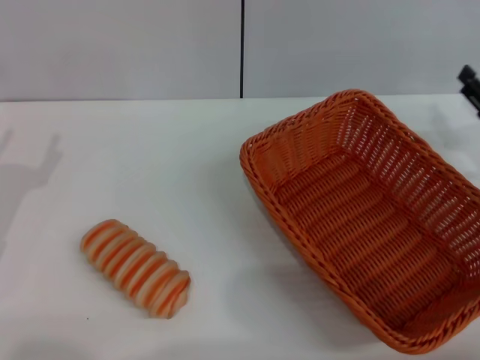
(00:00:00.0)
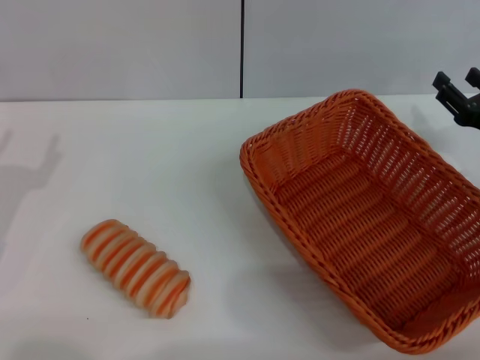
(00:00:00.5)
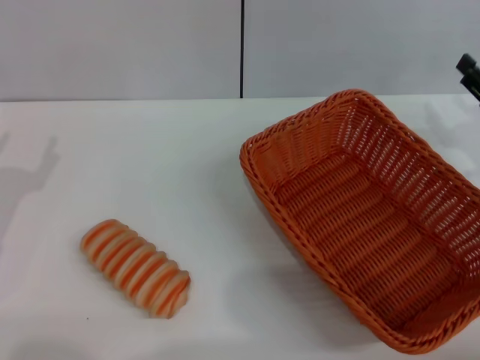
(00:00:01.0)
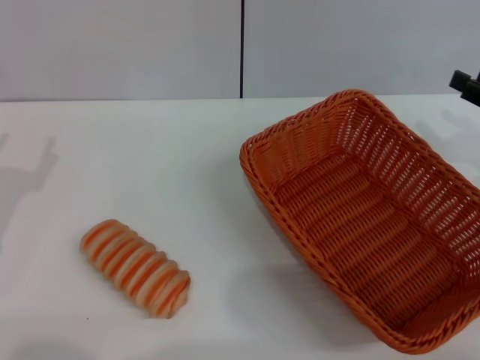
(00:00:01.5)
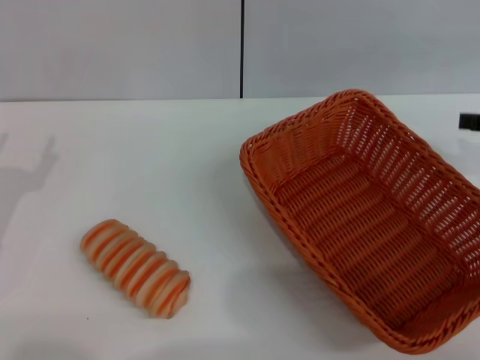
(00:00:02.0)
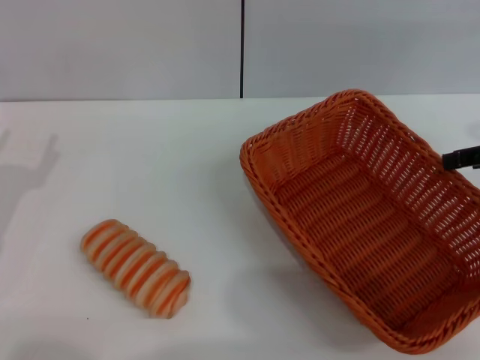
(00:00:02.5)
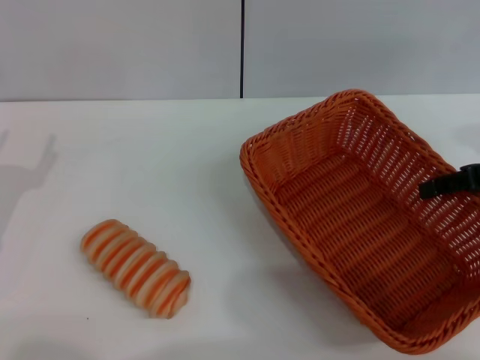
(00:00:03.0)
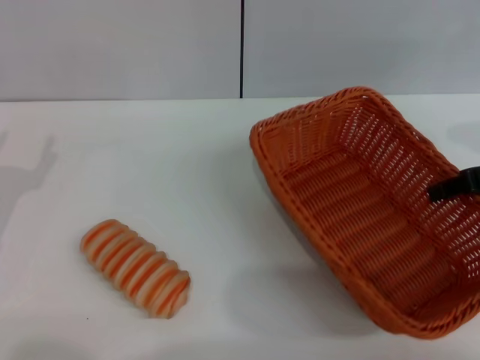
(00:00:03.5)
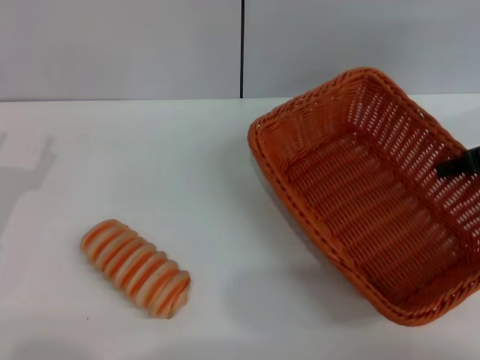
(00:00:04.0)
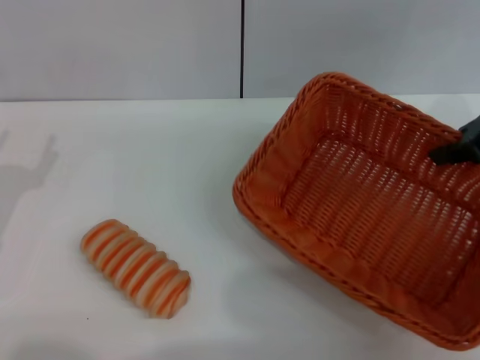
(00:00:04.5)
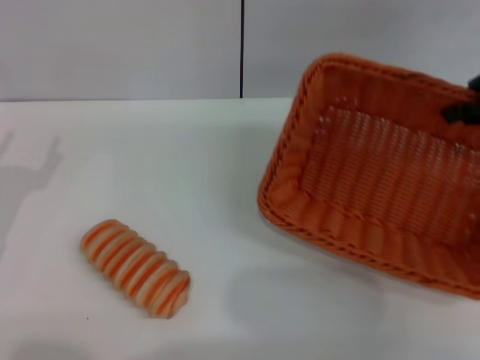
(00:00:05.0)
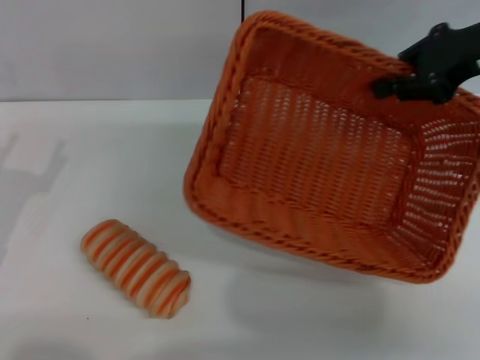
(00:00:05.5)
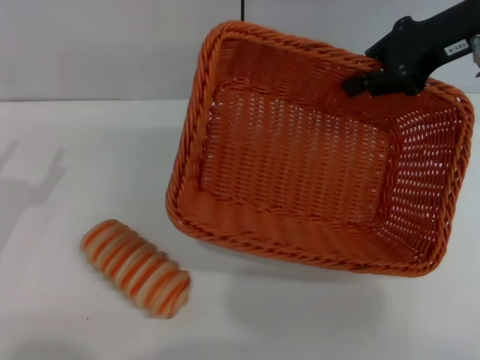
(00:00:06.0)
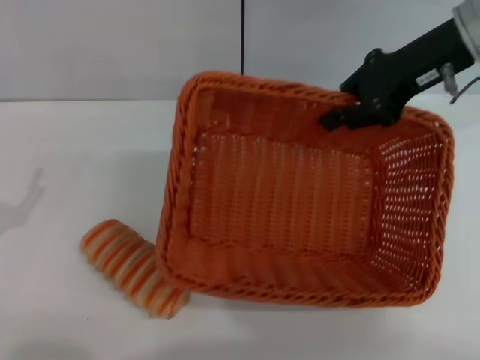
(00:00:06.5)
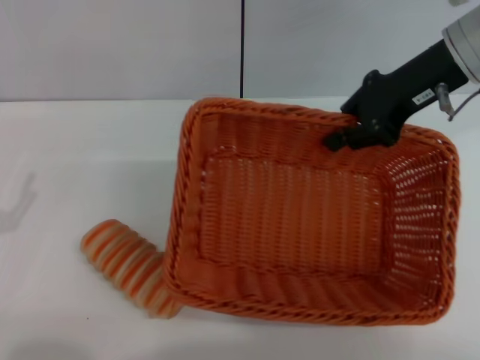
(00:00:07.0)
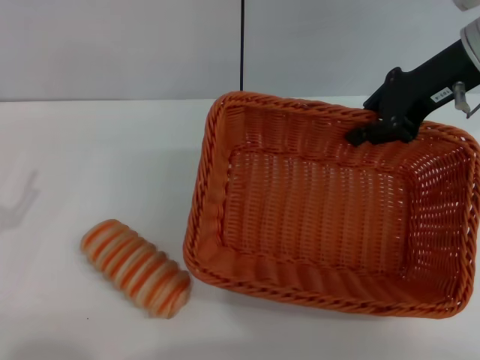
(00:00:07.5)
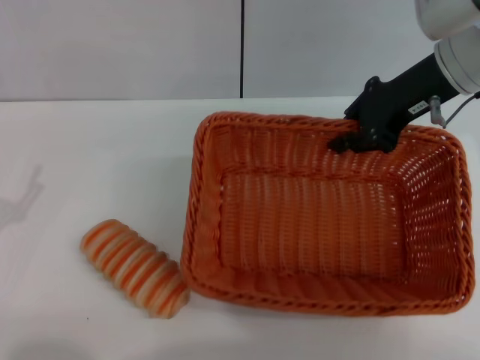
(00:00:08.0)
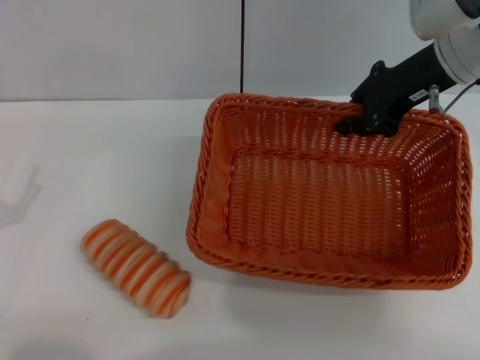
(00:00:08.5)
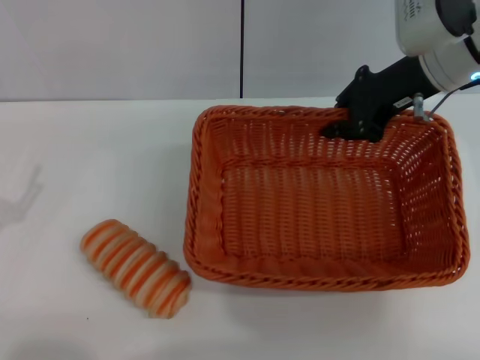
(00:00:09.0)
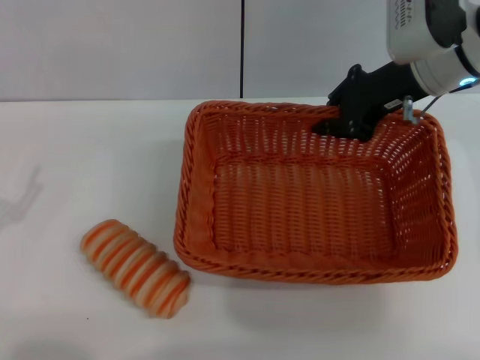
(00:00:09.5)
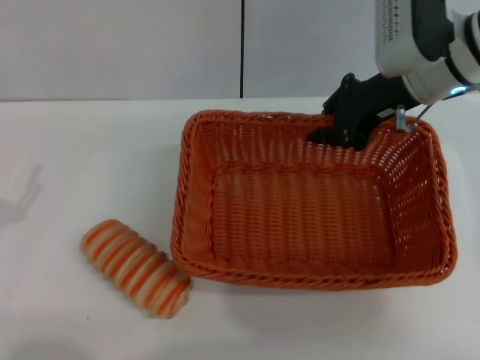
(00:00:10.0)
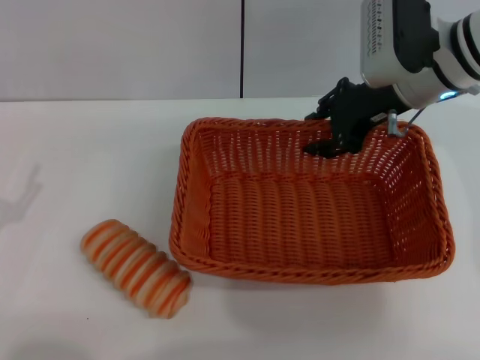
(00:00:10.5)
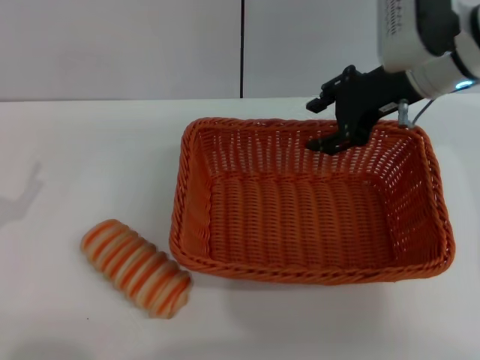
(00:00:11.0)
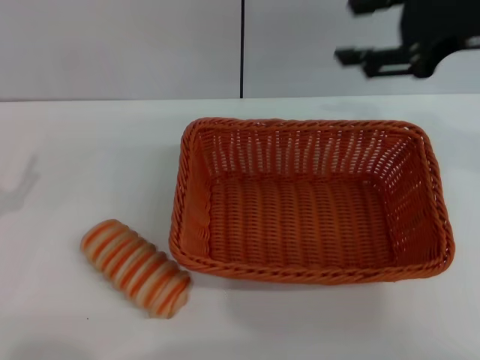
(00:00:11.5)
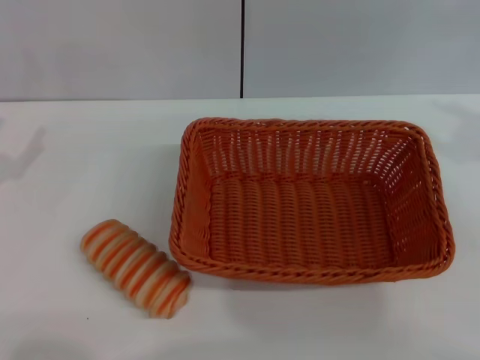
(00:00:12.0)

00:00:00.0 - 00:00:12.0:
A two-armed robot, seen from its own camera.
Step, 00:00:00.0 - 00:00:04.5: Pick up the light basket with the right gripper.
Step, 00:00:05.0 - 00:00:10.5: Place the light basket in the center of view with the right gripper.
00:00:00.0 - 00:00:02.0: The right gripper shifts some 10 cm upward.
00:00:02.0 - 00:00:04.0: The right gripper shifts by roughly 5 cm, and closes its fingers.
00:00:04.0 - 00:00:06.0: The right gripper is displaced forward, to the left and upward by approximately 10 cm.
00:00:06.0 - 00:00:08.0: The right gripper changes place by some 5 cm.
00:00:08.0 - 00:00:10.0: The grippers move only a little.
00:00:10.0 - 00:00:12.0: The left gripper goes approximately 5 cm forward. Meanwhile the right gripper is displaced to the right, backward and upward by approximately 25 cm, and opens.

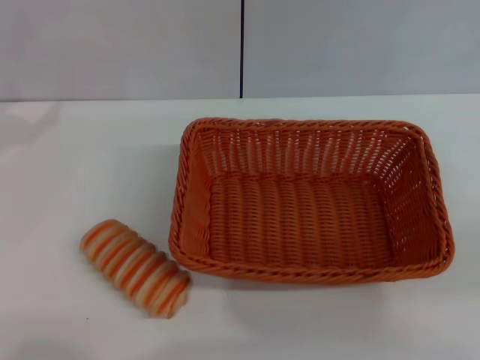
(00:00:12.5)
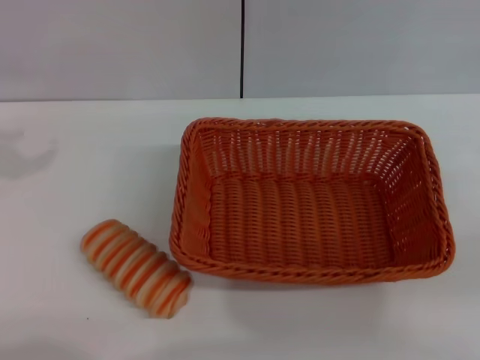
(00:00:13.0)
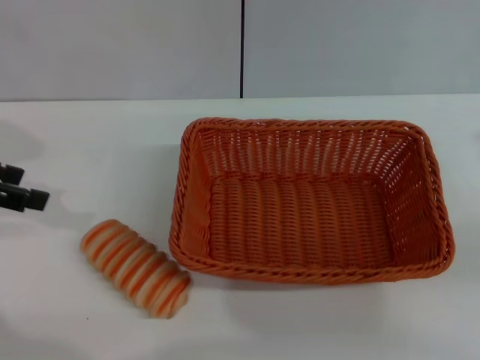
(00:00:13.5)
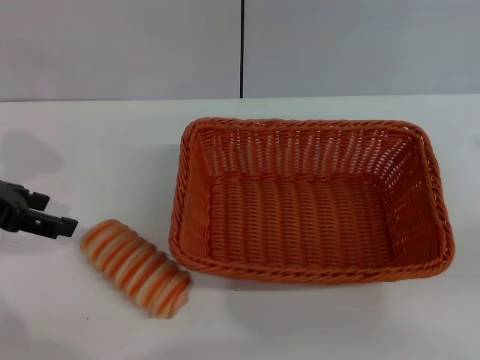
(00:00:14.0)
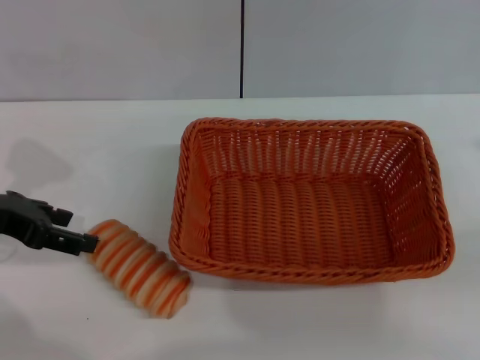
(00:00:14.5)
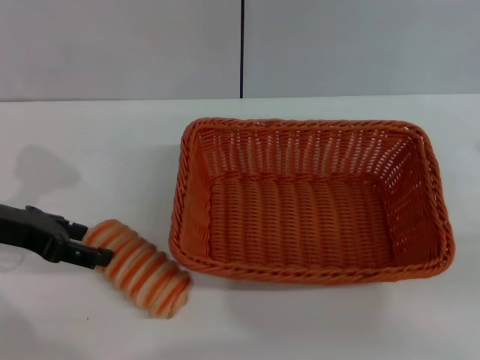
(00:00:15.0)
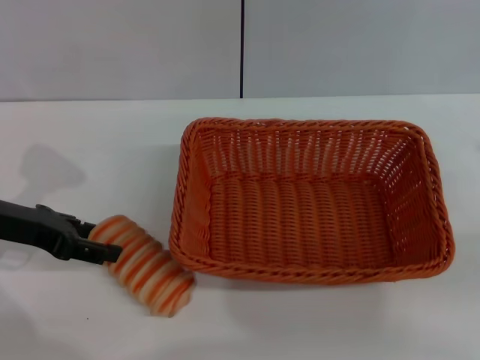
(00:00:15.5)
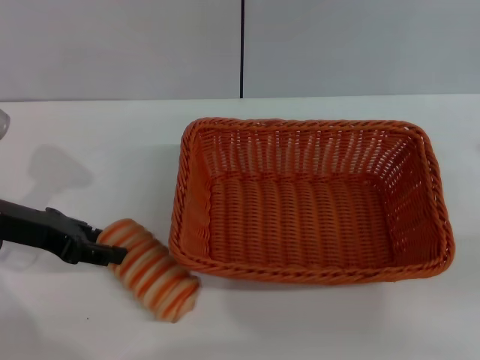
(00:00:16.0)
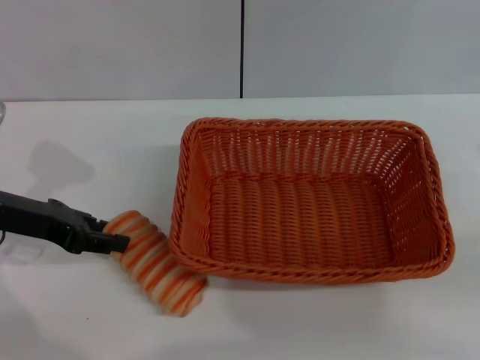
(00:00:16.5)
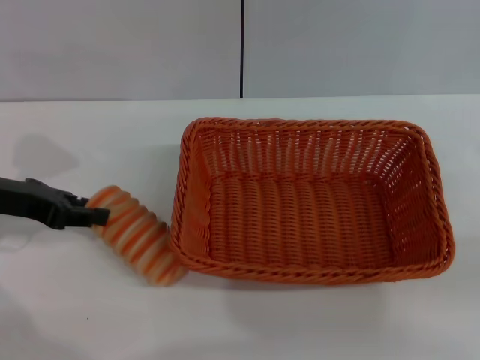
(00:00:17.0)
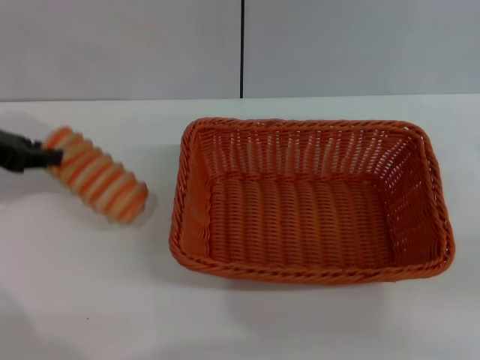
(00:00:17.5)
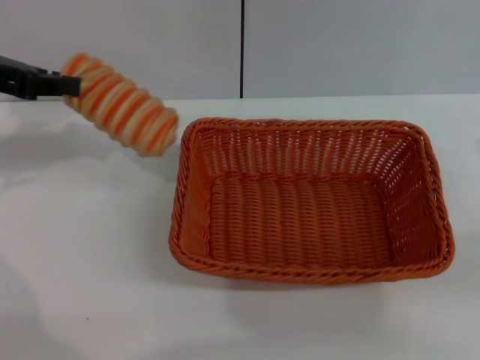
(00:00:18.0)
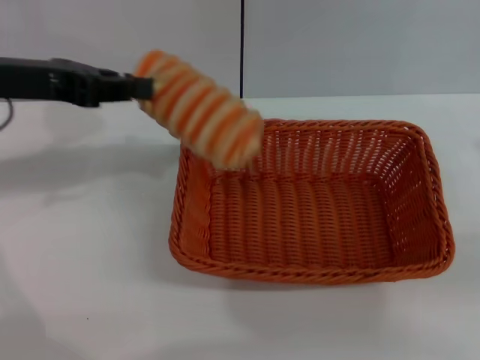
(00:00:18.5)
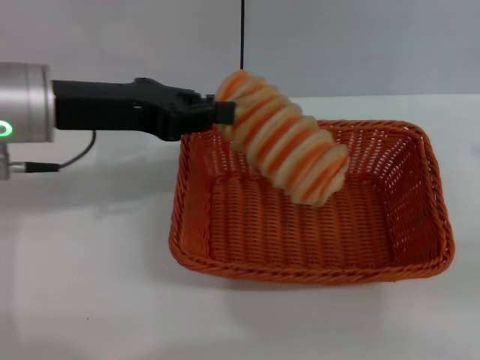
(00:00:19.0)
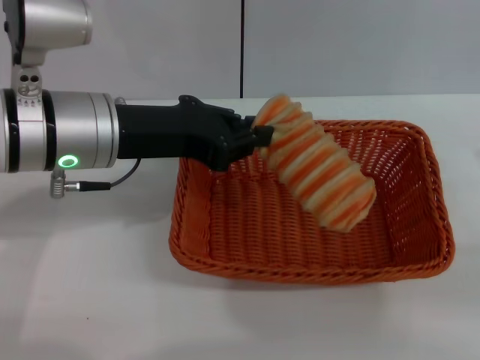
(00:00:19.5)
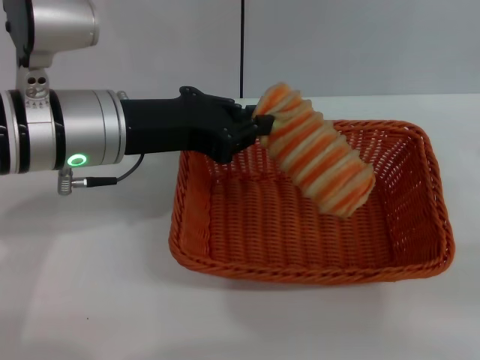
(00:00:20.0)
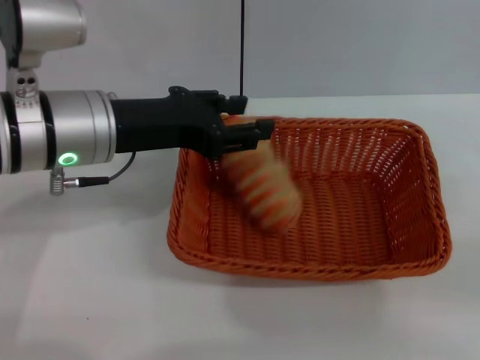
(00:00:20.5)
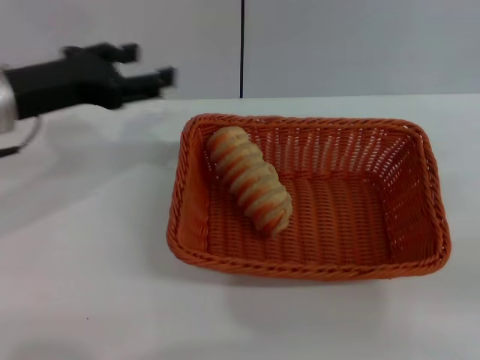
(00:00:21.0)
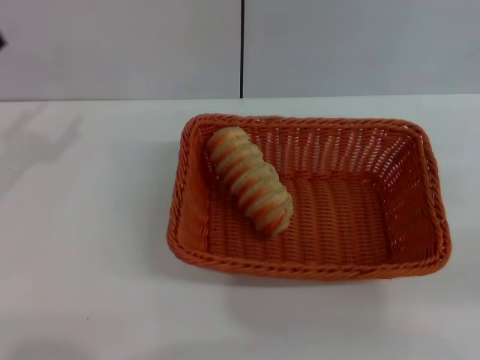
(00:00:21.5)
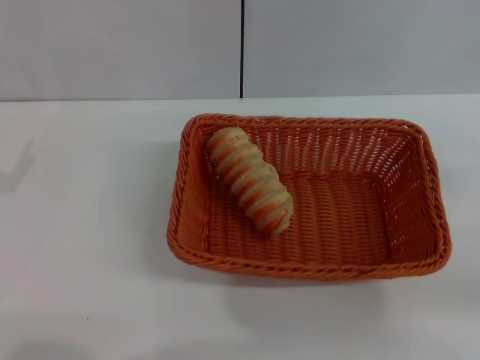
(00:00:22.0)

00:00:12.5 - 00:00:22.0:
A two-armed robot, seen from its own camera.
Step, 00:00:12.5 - 00:00:17.5: Pick up the long bread with the left gripper.
Step, 00:00:18.0 - 00:00:20.5: Place the long bread into the light basket with the left gripper.
00:00:12.5 - 00:00:14.5: The left gripper heads to the right and downward, covering about 10 cm.
00:00:14.5 - 00:00:16.5: The left gripper closes its fingers.
00:00:16.5 - 00:00:18.0: The left gripper heads upward, covering approximately 10 cm, and closes its fingers.
00:00:18.0 - 00:00:20.0: The left gripper goes some 15 cm to the right.
00:00:20.0 - 00:00:22.0: The left gripper is displaced to the left, downward and backward by about 25 cm, and opens.
